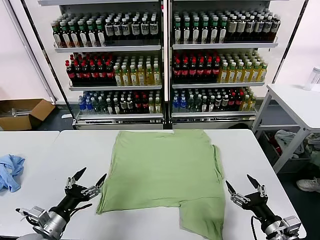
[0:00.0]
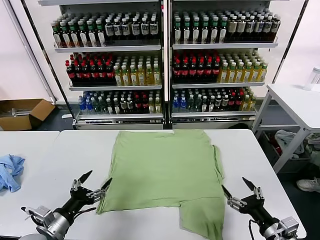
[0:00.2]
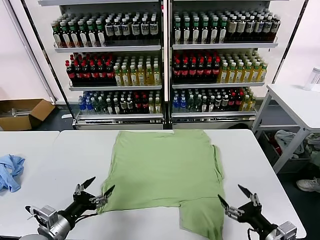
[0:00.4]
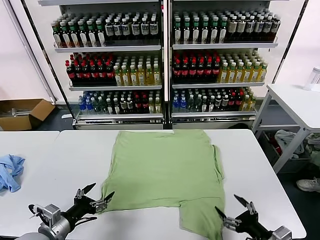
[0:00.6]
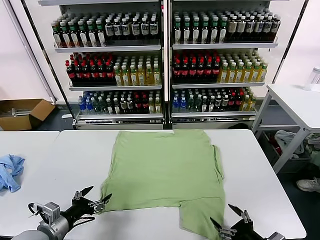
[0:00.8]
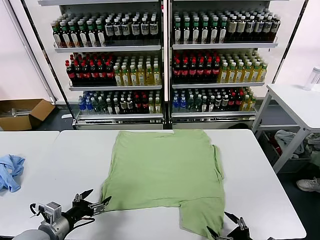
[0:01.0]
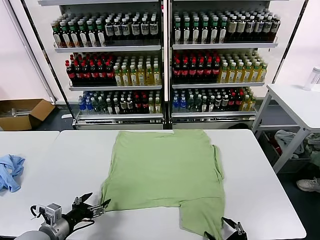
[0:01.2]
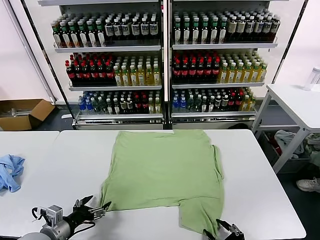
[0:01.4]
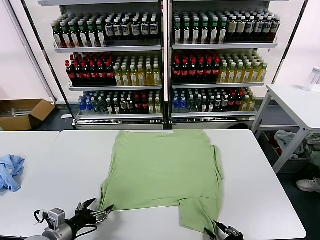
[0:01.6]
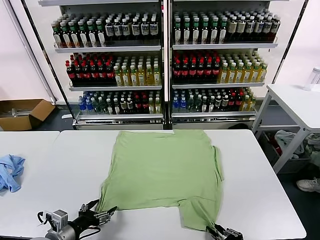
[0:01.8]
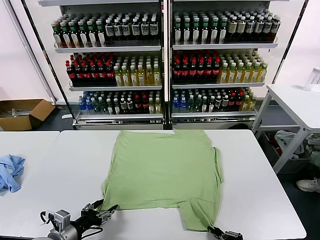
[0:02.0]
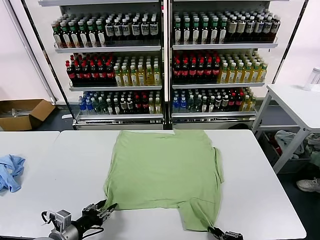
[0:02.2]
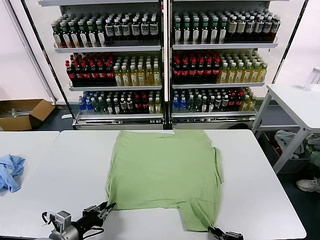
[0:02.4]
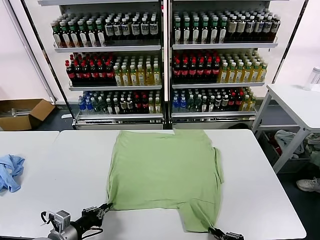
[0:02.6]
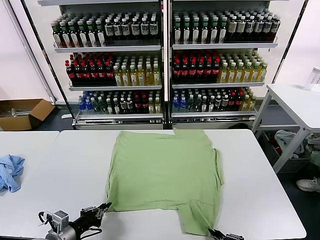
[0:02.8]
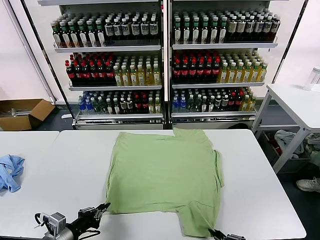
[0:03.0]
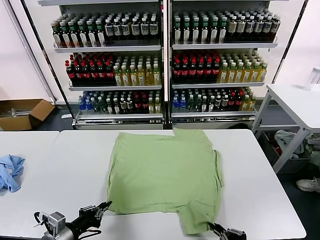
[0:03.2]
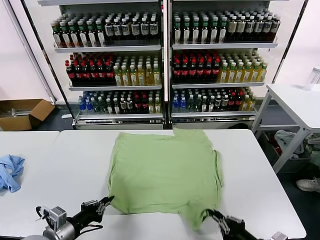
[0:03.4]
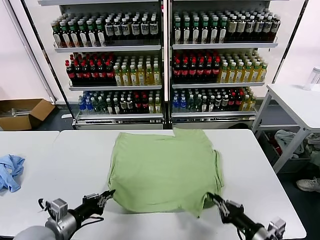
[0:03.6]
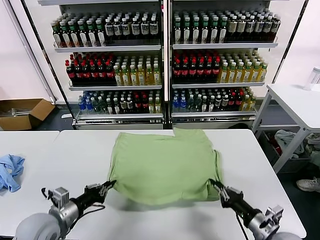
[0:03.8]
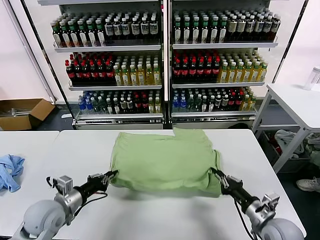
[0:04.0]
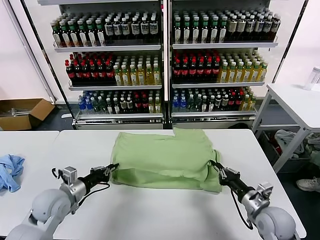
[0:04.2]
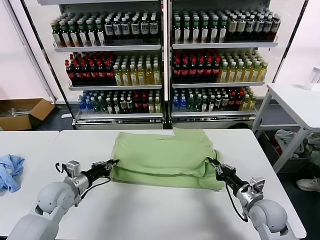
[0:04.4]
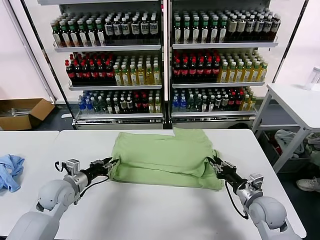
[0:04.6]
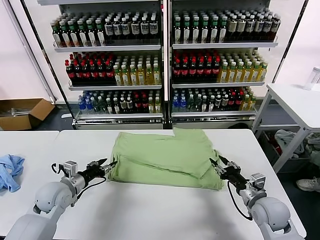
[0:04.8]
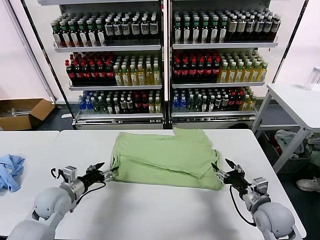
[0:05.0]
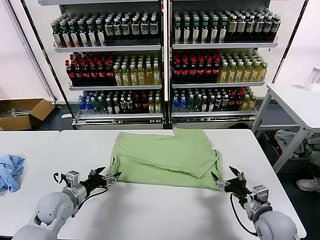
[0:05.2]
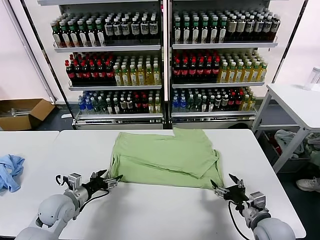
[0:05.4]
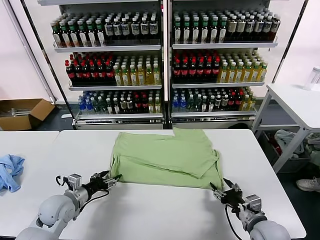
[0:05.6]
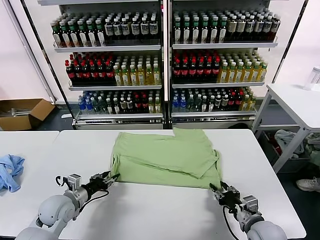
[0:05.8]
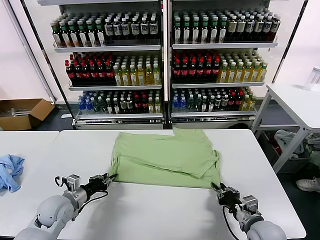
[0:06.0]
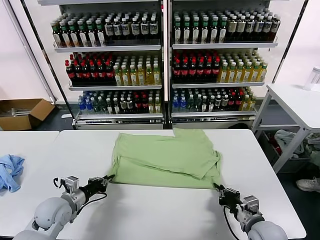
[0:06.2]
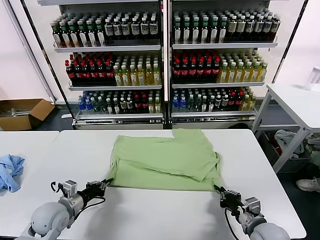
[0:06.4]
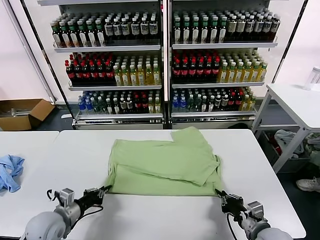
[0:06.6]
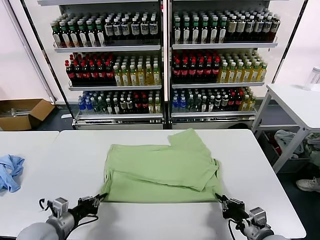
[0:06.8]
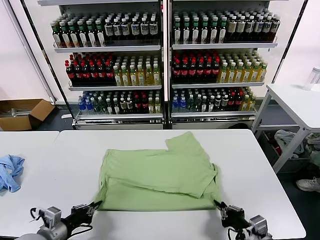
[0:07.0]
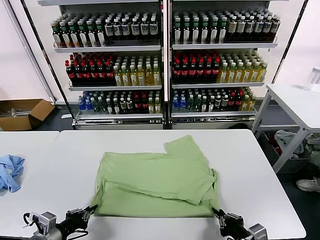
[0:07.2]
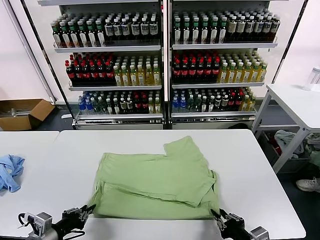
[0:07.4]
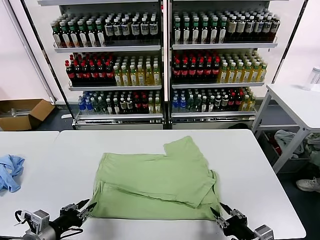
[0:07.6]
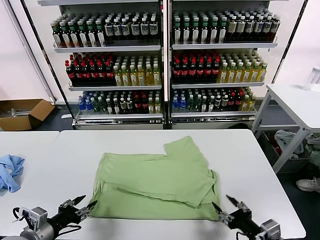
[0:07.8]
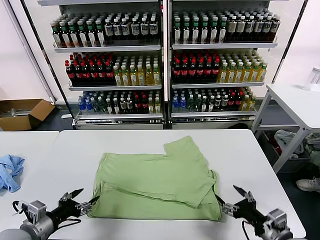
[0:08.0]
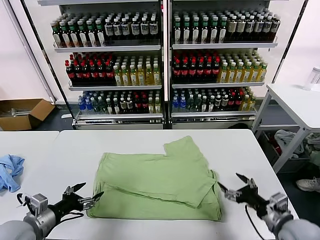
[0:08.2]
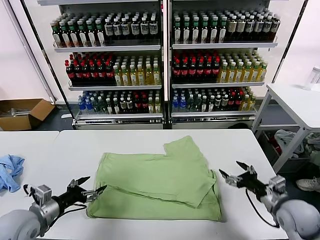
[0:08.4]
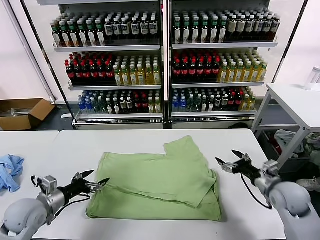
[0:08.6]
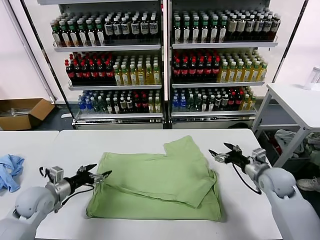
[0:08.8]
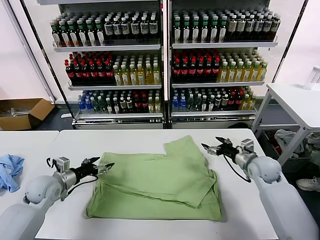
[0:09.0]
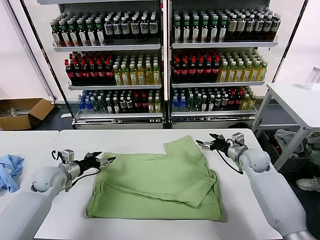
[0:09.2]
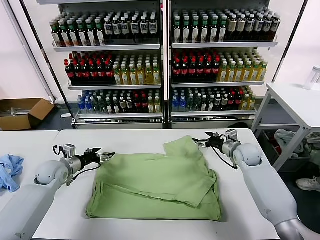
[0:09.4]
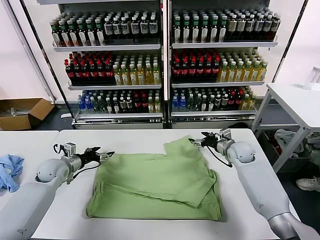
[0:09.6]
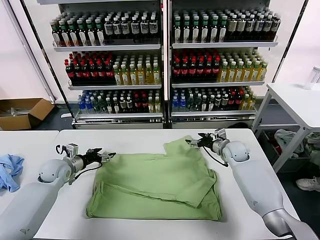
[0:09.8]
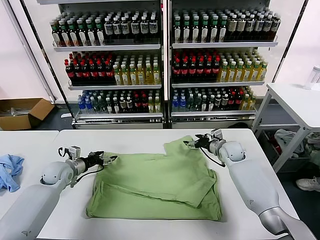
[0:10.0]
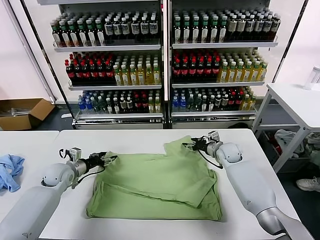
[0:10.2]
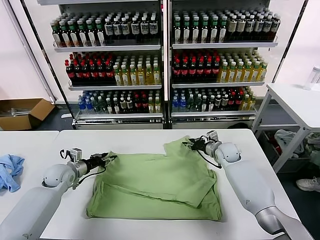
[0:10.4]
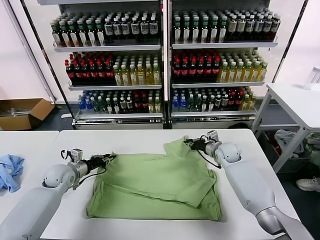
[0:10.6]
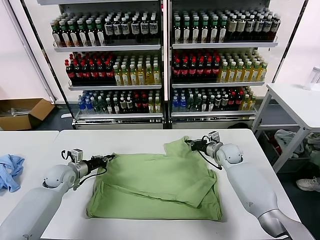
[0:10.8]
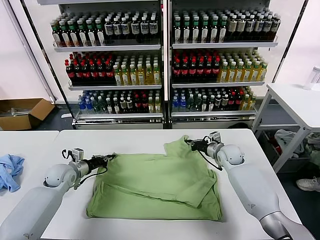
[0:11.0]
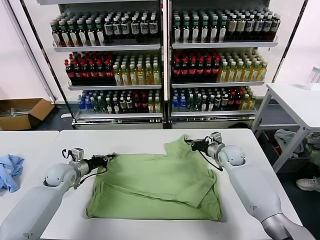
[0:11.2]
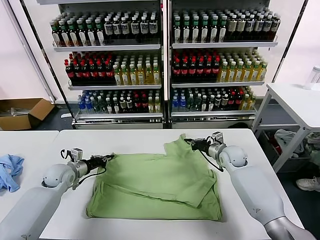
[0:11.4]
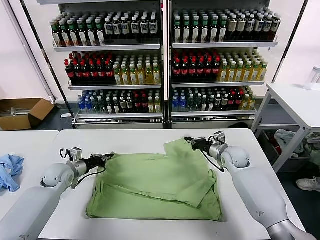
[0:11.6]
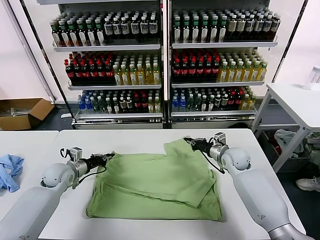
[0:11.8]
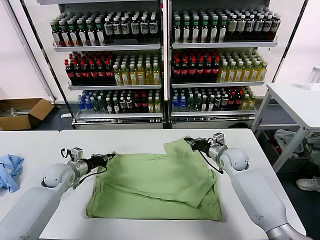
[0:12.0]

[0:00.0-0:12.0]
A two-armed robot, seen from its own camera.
Task of the whole recording: fold and organize the clothes.
Step, 0.0 to 2.6 s: use both grippers simultaneously to clamp the lower edge of the clothing fabric.
Step, 2.8 to 4.6 s: use both grippers to drag the lower edge of the fabric forward and fold it over the upper edge.
Step, 5.0 to 7.4 s: Drag the clothes downward with both gripper.
Step, 7.8 to 10.6 s: use both grippers simultaneously to clamp the upper edge of the clothing fabric.
1.6 to 3.0 s: The left gripper closes its fingers.
3.0 to 4.4 s: Both grippers travel together forward, roughly 20 cm.
4.4 to 6.0 s: The left gripper shifts by some 5 cm, and opens, then closes once more, while the right gripper heads backward, covering roughly 5 cm, and opens and closes again.
6.0 to 7.6 s: The grippers both shift backward and upward by some 15 cm. The right gripper opens.
7.6 to 9.0 s: The right gripper is displaced forward by about 30 cm, and opens up. The left gripper travels forward by about 20 cm, and opens up.
9.0 to 10.4 s: The left gripper moves forward, approximately 5 cm, and closes, while the right gripper heads to the left and forward, covering about 10 cm, and closes its fingers.
10.4 to 12.0 s: The left gripper closes up.

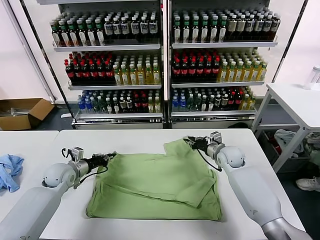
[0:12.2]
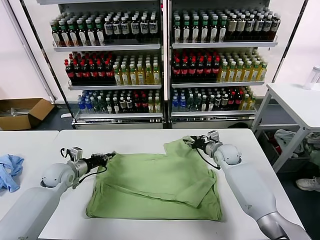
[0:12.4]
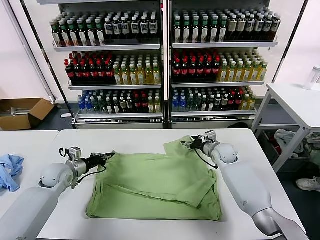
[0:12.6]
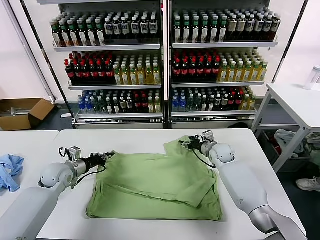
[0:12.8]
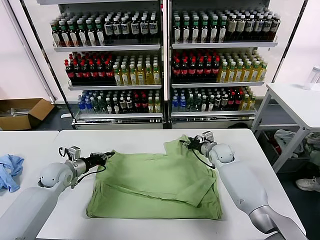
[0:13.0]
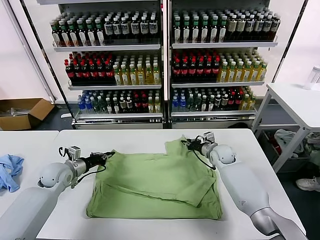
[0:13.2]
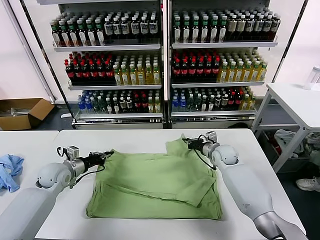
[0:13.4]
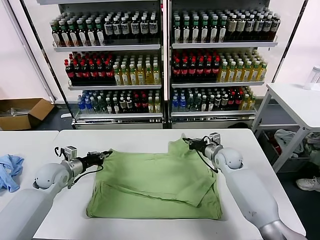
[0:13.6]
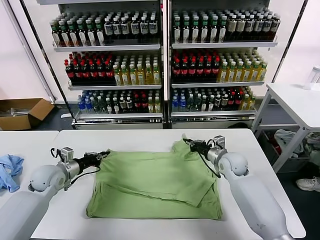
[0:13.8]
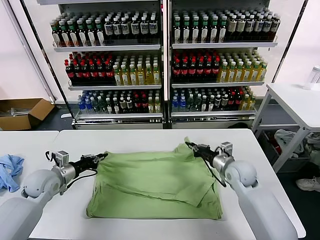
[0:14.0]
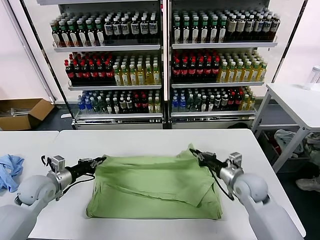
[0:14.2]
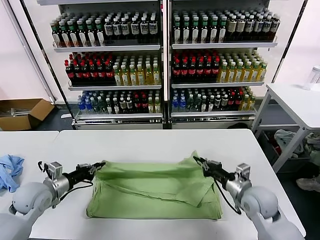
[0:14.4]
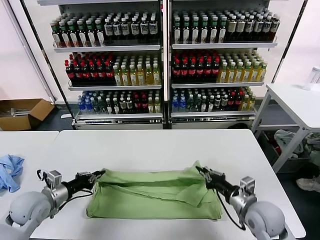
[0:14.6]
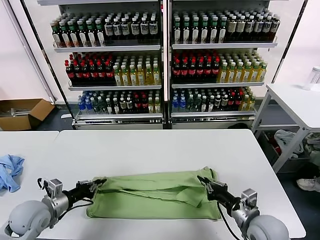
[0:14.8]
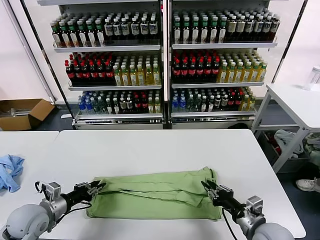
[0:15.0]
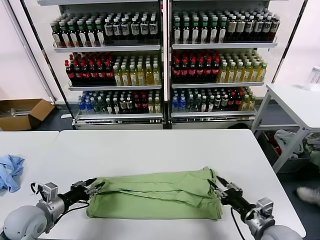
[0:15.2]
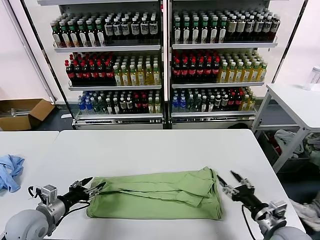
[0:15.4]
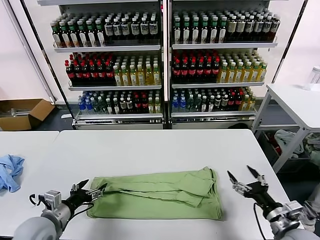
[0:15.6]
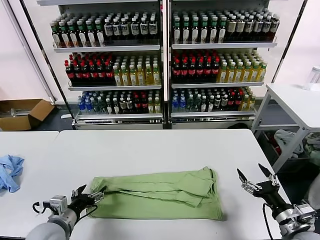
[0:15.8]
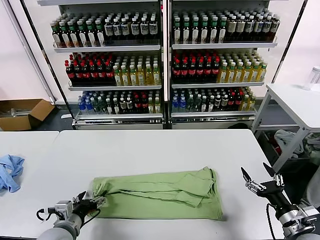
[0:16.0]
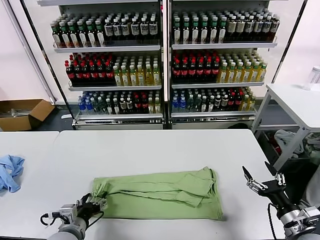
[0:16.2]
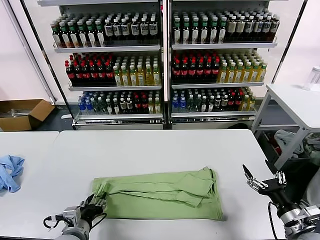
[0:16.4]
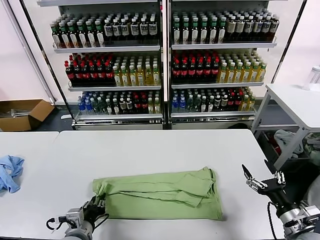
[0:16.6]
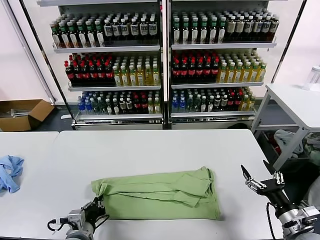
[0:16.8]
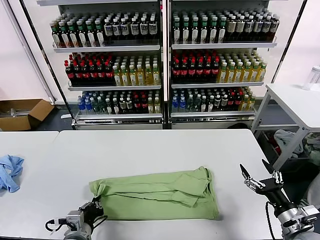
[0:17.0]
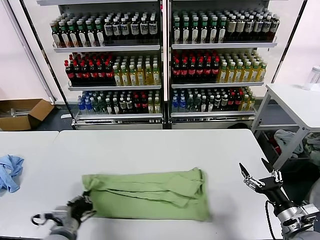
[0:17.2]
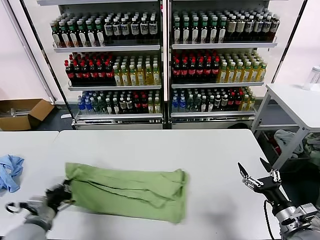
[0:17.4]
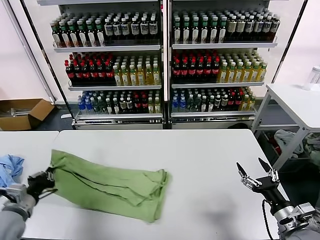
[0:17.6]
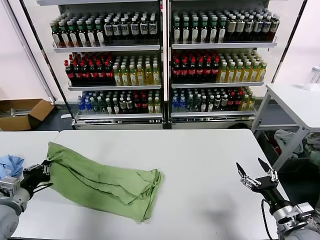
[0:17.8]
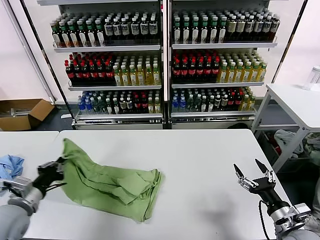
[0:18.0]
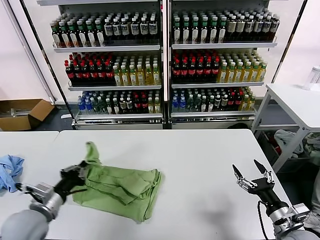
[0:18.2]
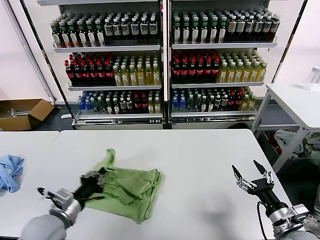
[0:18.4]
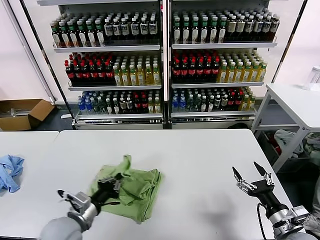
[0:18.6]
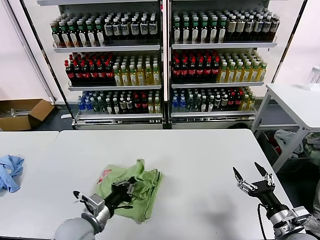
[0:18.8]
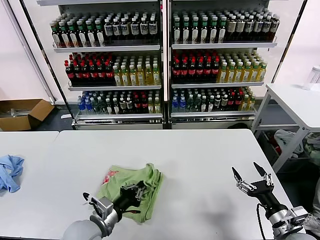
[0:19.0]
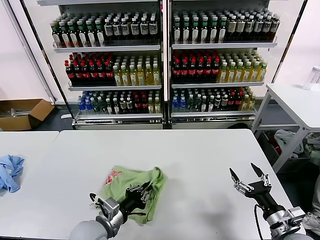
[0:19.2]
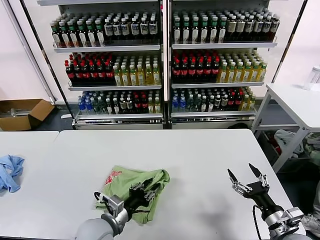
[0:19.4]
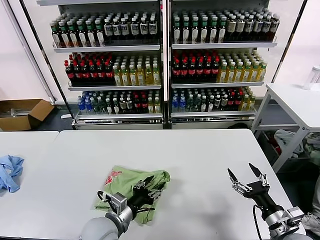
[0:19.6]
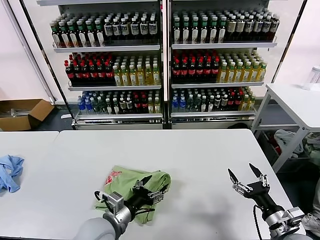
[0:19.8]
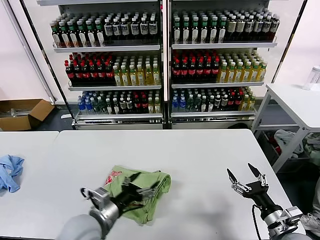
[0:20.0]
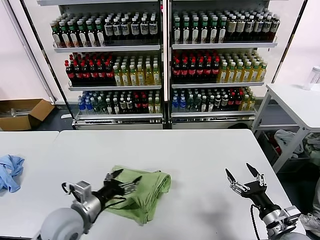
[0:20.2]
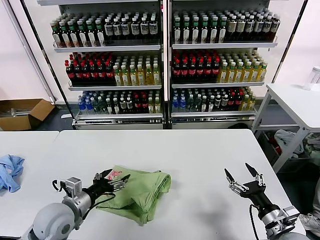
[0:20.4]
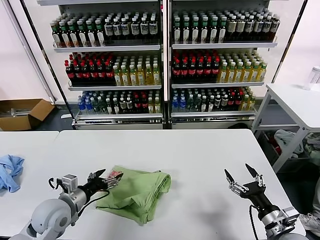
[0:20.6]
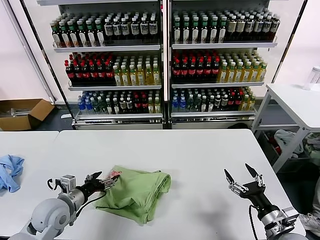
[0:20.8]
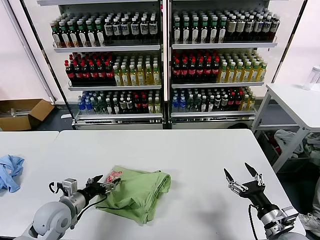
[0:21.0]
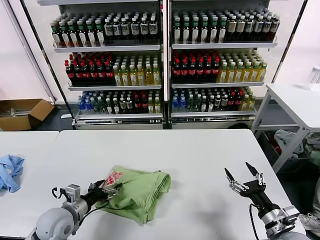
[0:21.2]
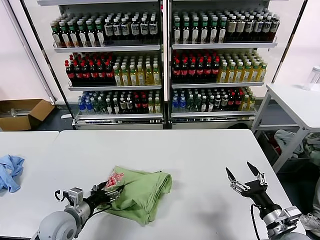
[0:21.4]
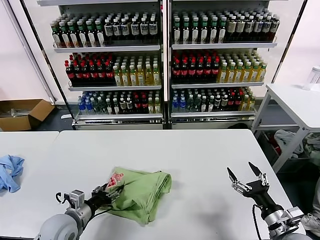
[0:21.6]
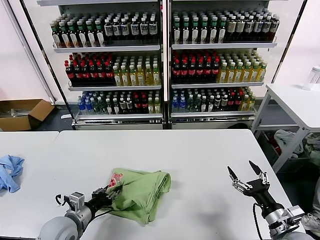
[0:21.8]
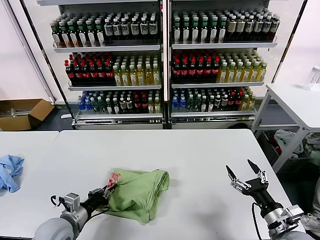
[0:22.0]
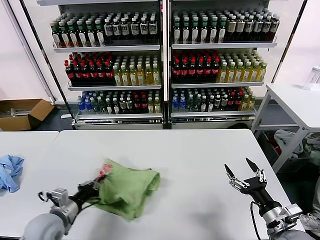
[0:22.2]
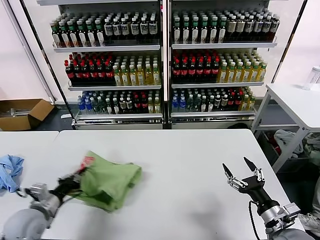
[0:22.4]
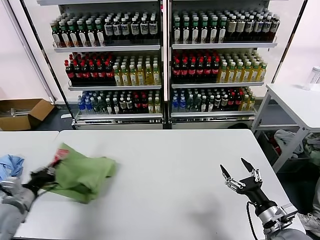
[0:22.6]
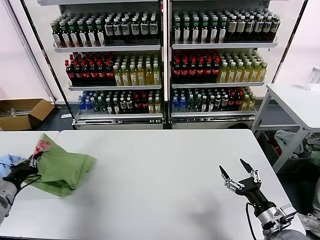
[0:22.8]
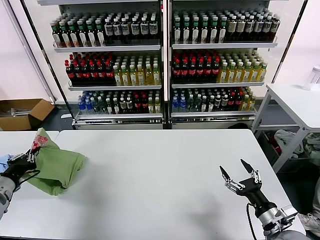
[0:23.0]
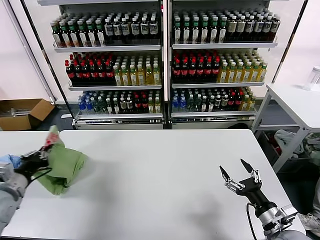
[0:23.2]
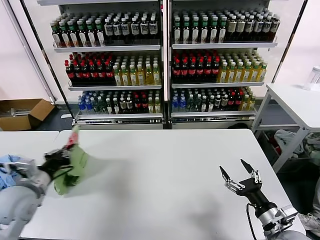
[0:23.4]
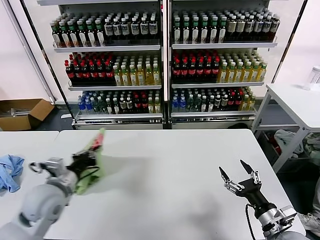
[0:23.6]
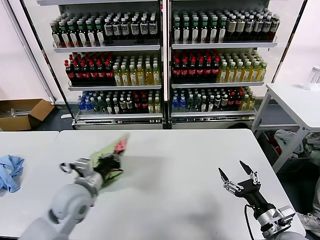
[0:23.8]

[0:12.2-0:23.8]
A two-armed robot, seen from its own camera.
Task of the whole recording: fold and organize the clothes.
Step, 12.2 to 15.0 s: use both grippers to drag the upper edge of the fabric backward and fold it over the lower edge.
Step, 15.2 to 16.8 s: use the left gripper to clamp the left edge of the fabric.
Step, 17.0 to 19.6 s: use the left gripper to drag the left edge of the fabric to the left and folds it over the right edge.
12.2 to 13.6 s: The right gripper closes its fingers.
13.6 to 15.0 s: The right gripper shifts about 30 cm backward, while the left gripper travels backward by some 15 cm.
15.0 to 16.6 s: The right gripper travels to the right by some 10 cm, and opens up. The left gripper shifts roughly 15 cm to the right and backward, and opens, then closes once more.
16.6 to 18.0 s: The left gripper travels to the left and upward by approximately 15 cm, and closes.
18.0 to 19.4 s: The left gripper moves to the right, roughly 20 cm, and opens.
19.4 to 21.0 s: The left gripper moves to the left, about 15 cm, and opens its fingers.
21.0 to 22.4 s: The left gripper is displaced to the left by some 5 cm, and closes up.
22.4 to 23.8 s: The left gripper shifts about 15 cm to the right and upward.
